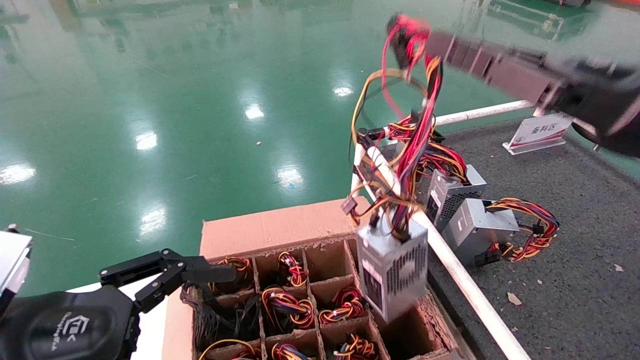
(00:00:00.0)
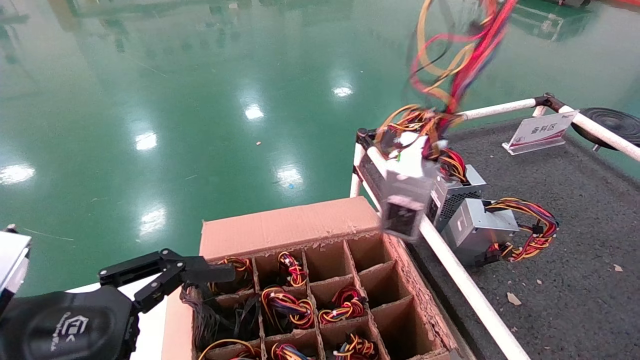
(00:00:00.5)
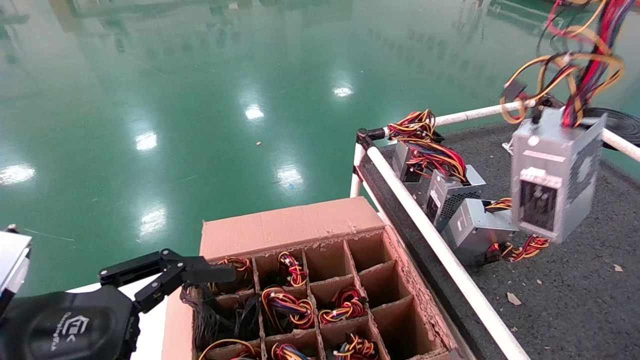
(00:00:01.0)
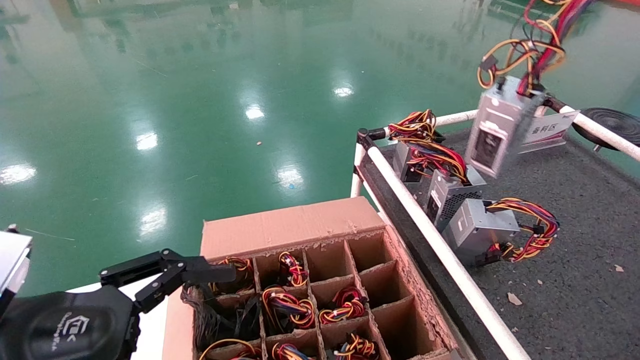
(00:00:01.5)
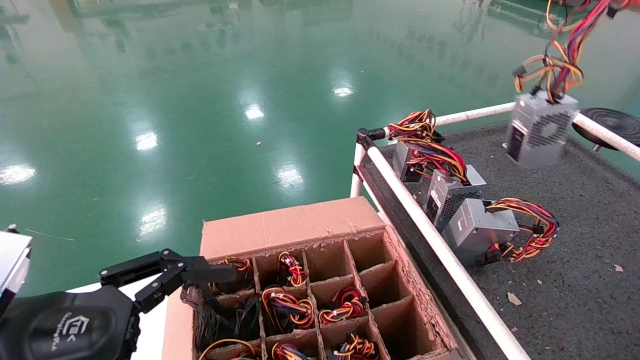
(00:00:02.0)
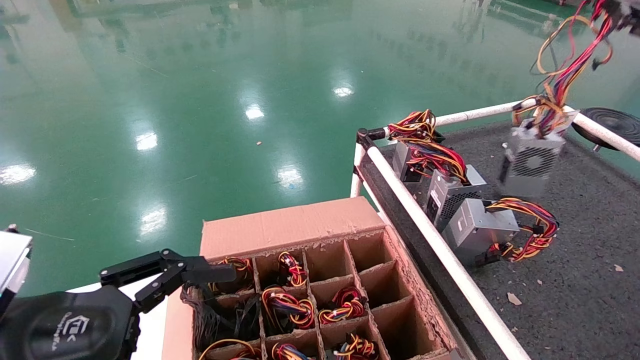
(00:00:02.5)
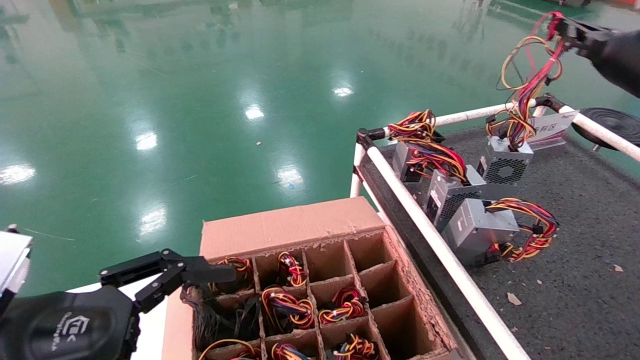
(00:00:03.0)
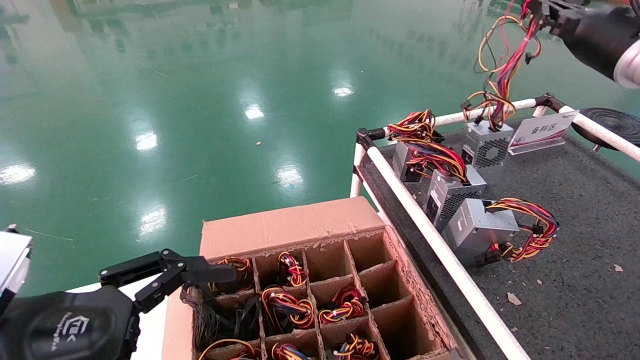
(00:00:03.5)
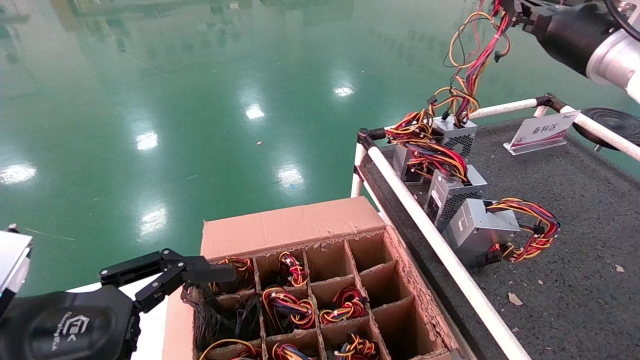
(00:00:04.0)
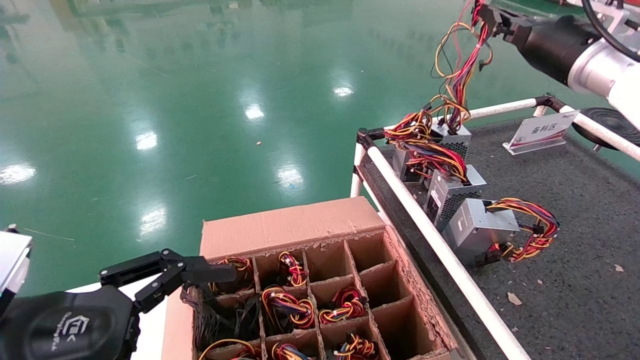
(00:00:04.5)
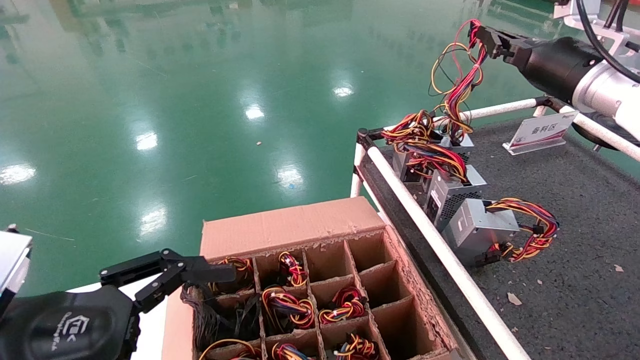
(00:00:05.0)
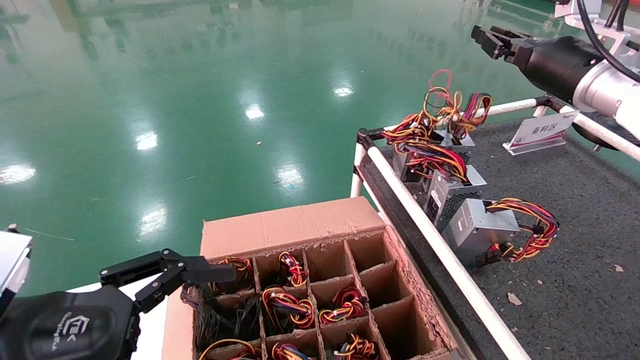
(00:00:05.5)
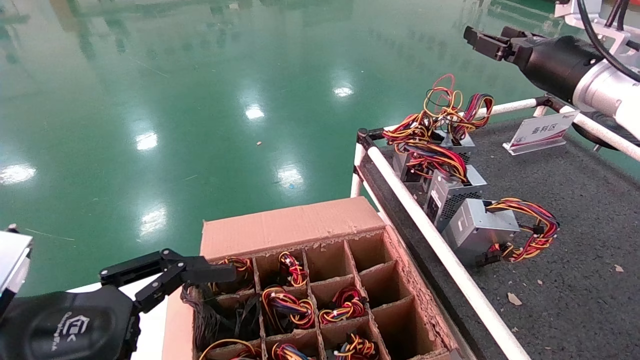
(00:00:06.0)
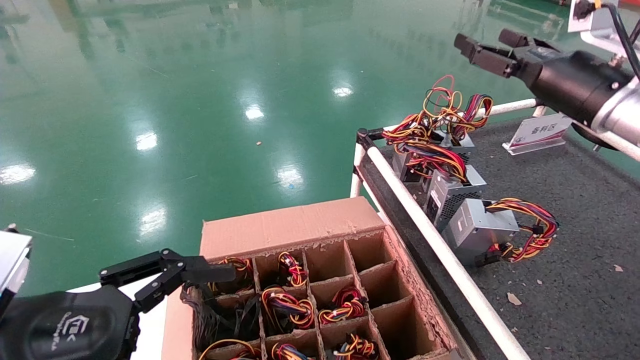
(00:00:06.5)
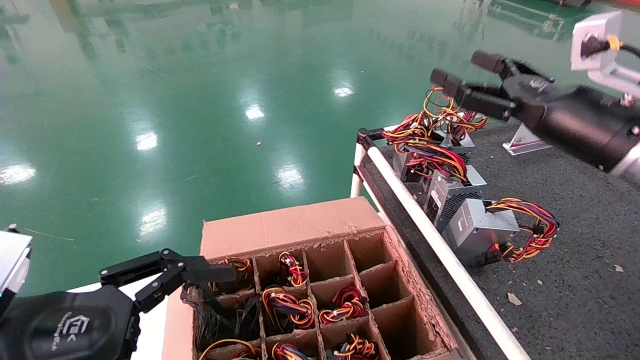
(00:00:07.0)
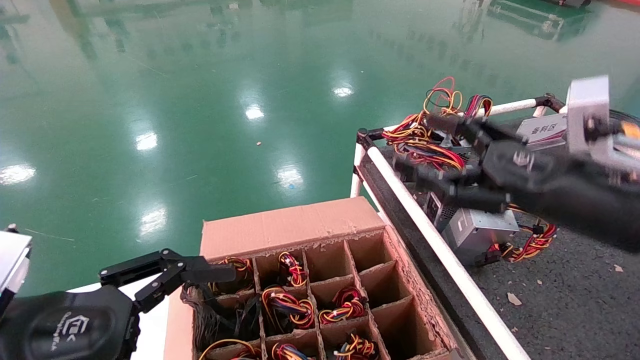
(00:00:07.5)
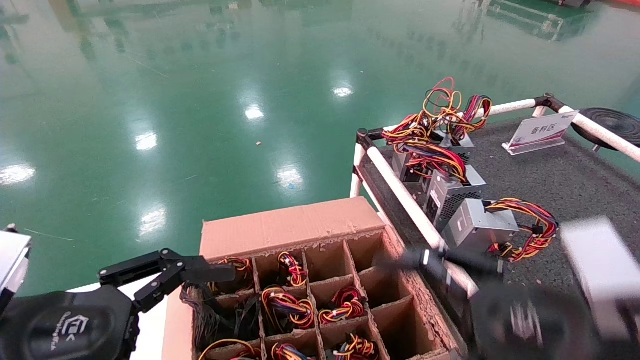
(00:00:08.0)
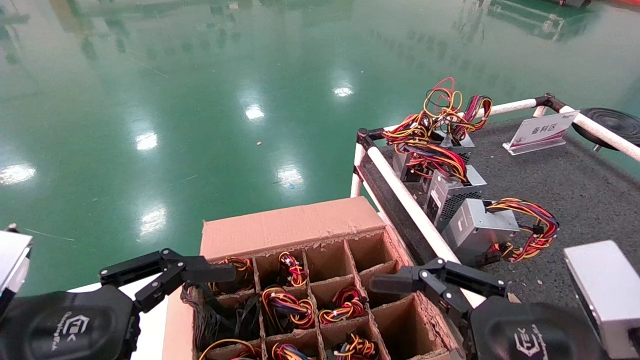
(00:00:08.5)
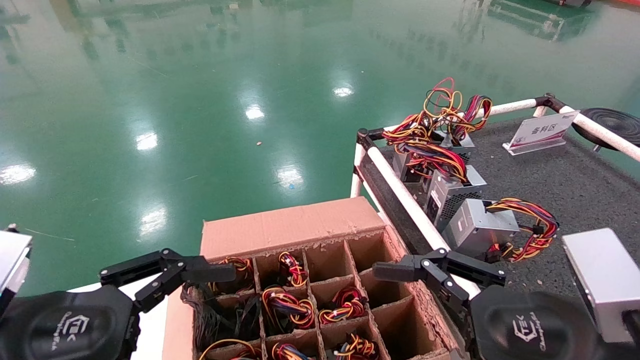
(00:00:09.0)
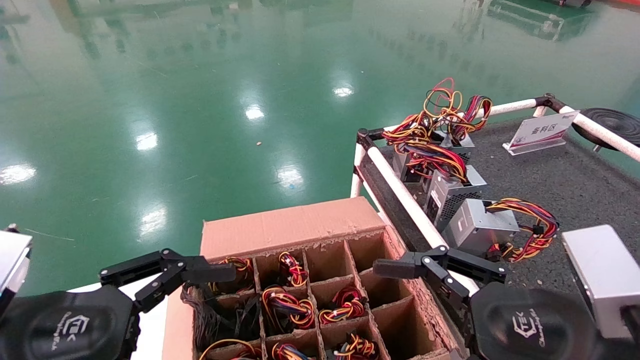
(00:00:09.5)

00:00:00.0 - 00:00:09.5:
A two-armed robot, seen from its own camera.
Step, 00:00:00.0 - 00:00:05.0: Place the power supply on the operating table.
00:00:00.0 - 00:00:02.0: The right gripper travels to the right, upward and forward by approximately 20 cm.
00:00:02.0 - 00:00:04.0: The right gripper travels to the left and forward by approximately 15 cm.
00:00:04.0 - 00:00:05.5: There are only small adjustments of the grippers.
00:00:05.5 - 00:00:07.5: The right gripper travels backward and downward by some 20 cm, and opens its fingers.
00:00:07.5 - 00:00:09.5: The right gripper travels backward and downward by approximately 10 cm.
